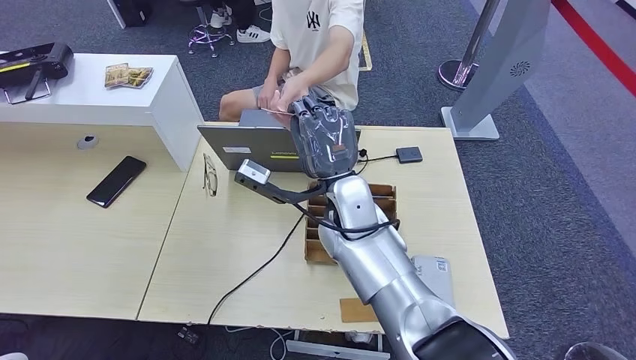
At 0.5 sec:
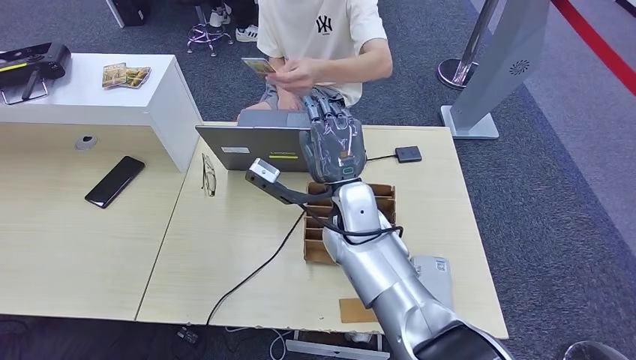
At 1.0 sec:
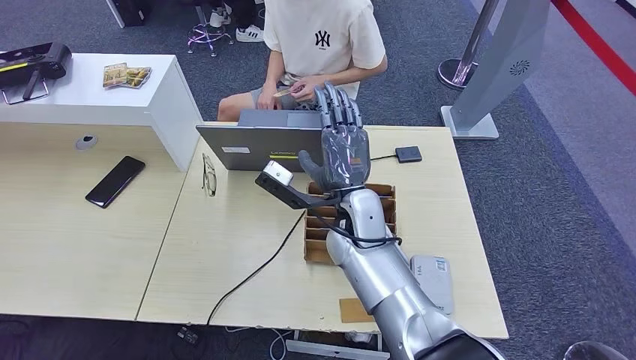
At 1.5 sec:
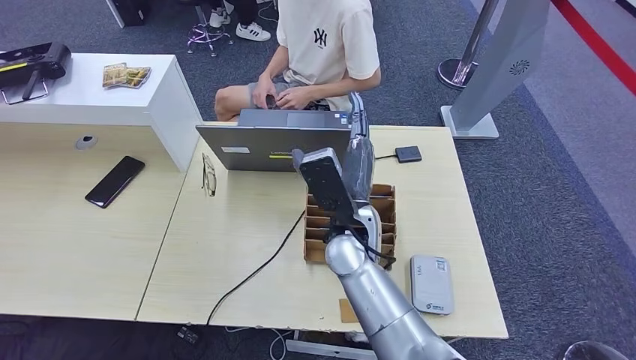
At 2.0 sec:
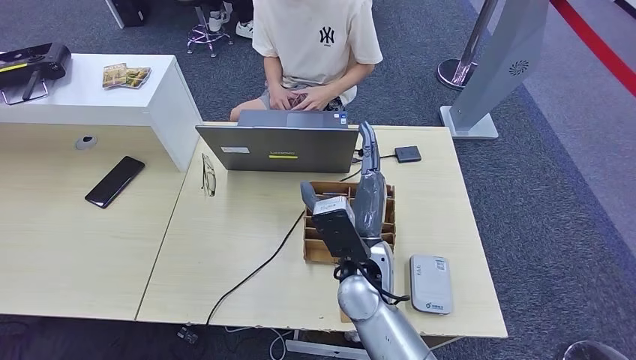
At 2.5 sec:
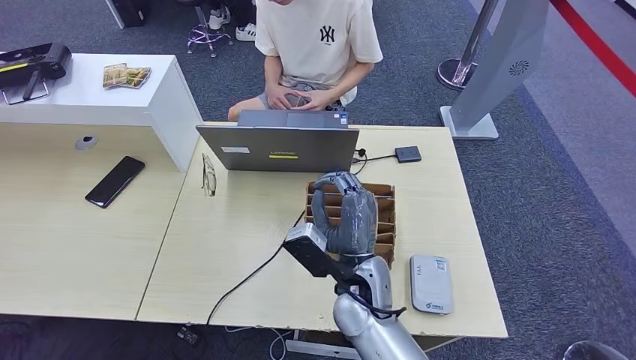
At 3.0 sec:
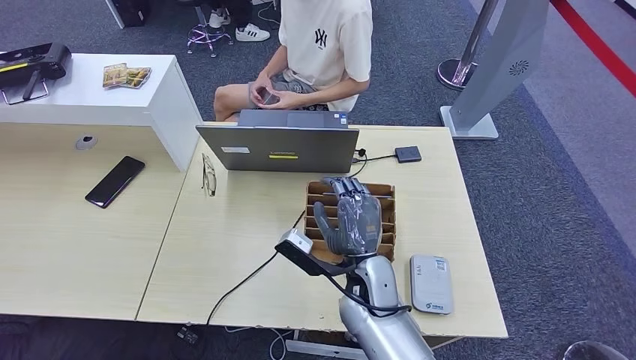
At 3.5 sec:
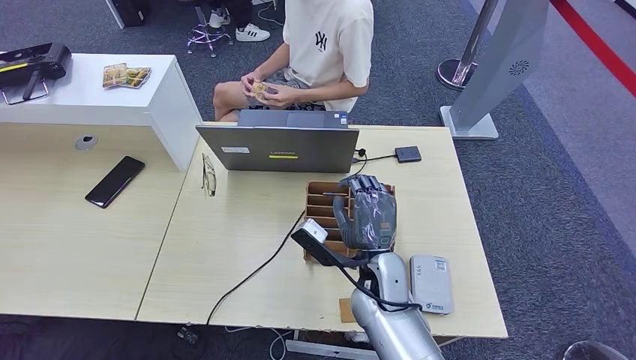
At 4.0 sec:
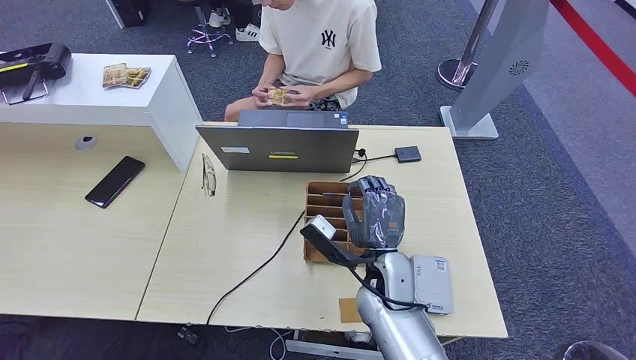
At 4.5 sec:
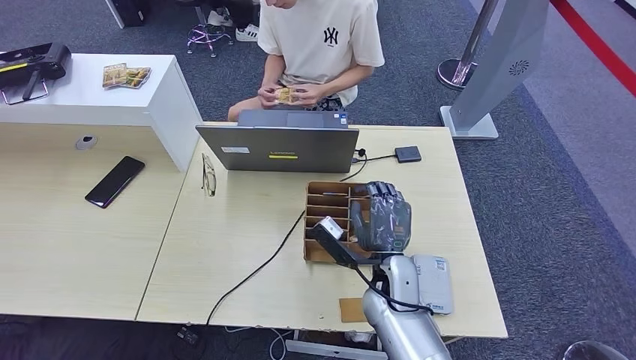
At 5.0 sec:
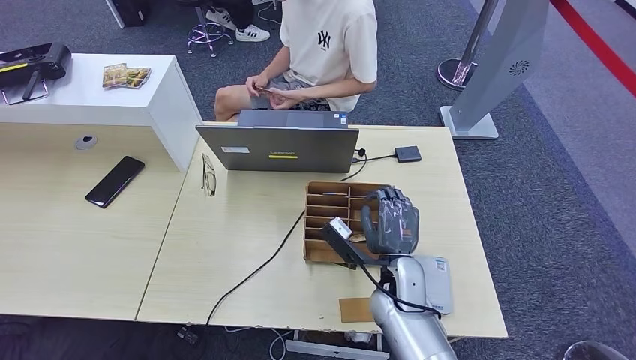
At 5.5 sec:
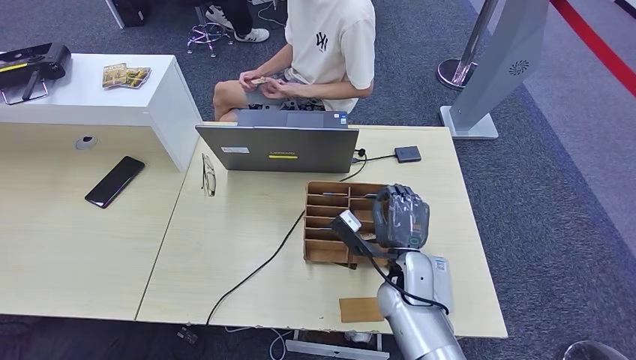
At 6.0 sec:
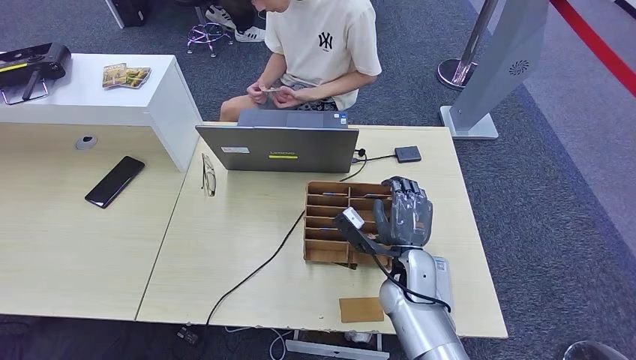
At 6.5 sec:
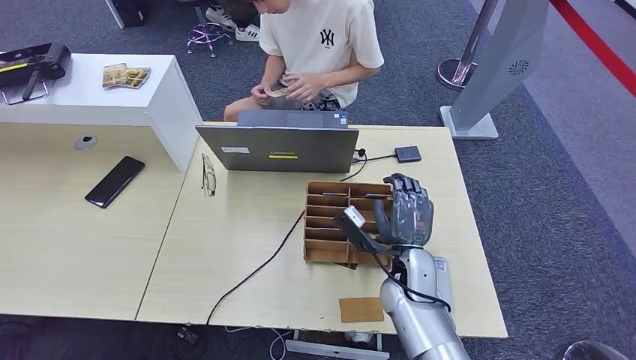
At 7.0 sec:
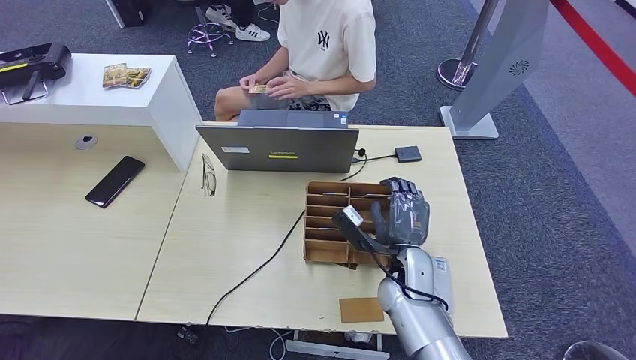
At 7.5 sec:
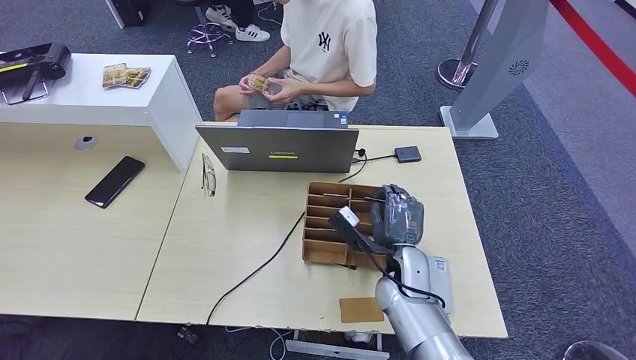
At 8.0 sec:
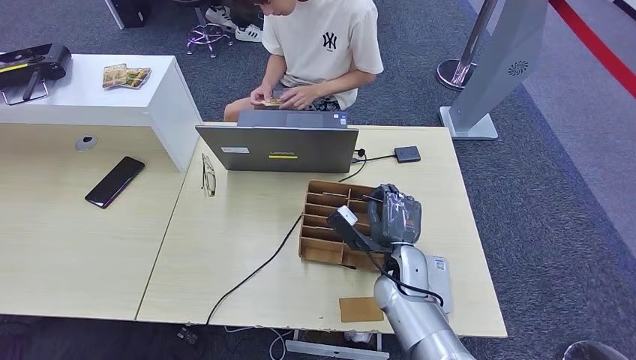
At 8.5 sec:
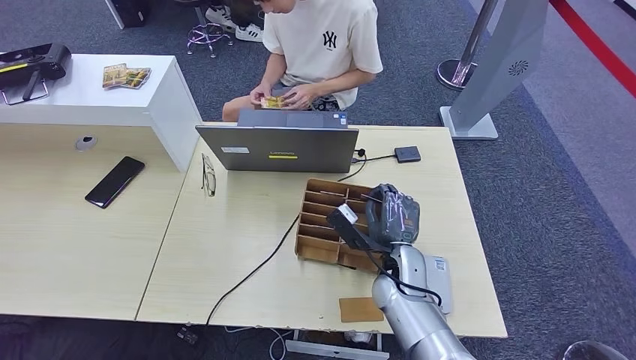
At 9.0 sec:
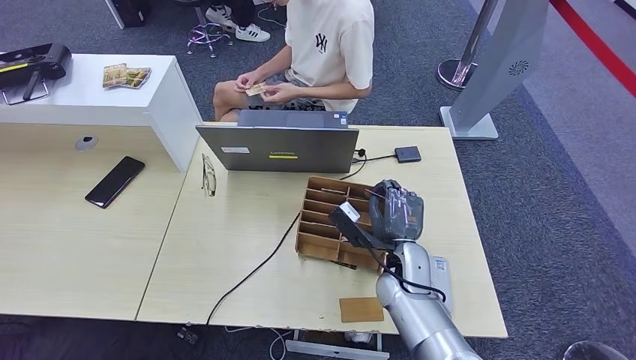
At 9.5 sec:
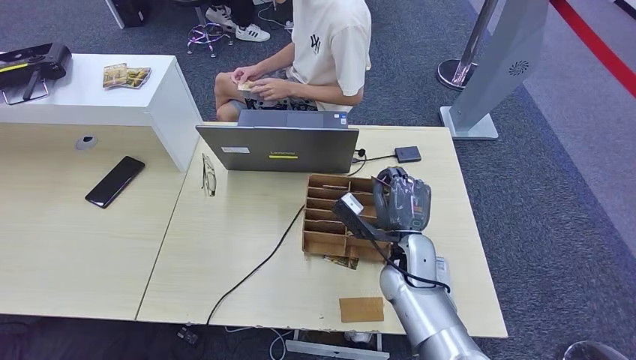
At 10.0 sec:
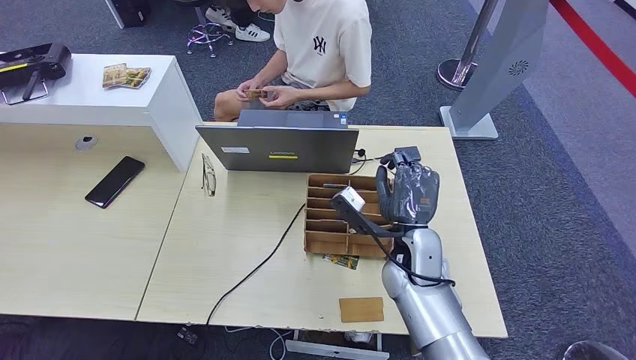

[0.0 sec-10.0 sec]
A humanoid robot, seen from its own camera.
0.0 sec to 2.0 sec: The right hand travels backward and downward by approximately 10 cm.
2.0 sec to 4.0 sec: The right hand heads downward, covering about 5 cm.
4.0 sec to 6.0 sec: The right hand shifts by roughly 5 cm.
6.0 sec to 8.0 sec: The hands move only a little.
8.0 sec to 10.0 sec: The right hand heads upward, covering some 5 cm.

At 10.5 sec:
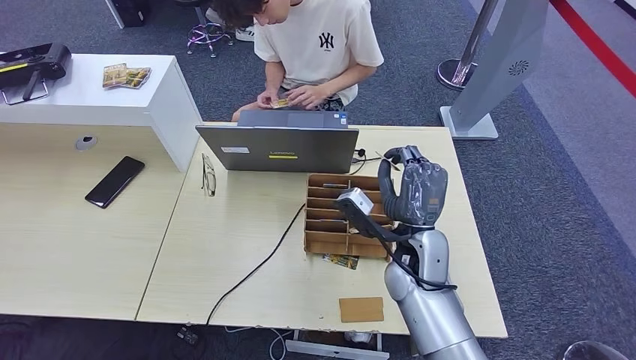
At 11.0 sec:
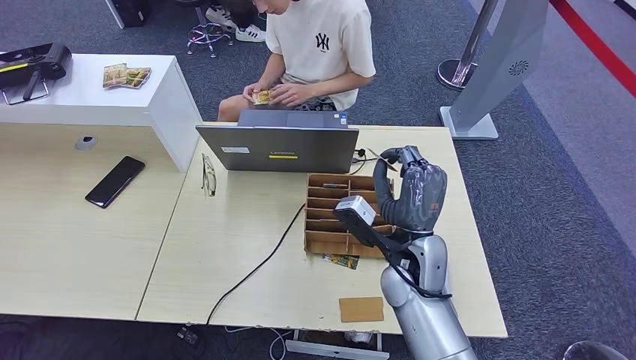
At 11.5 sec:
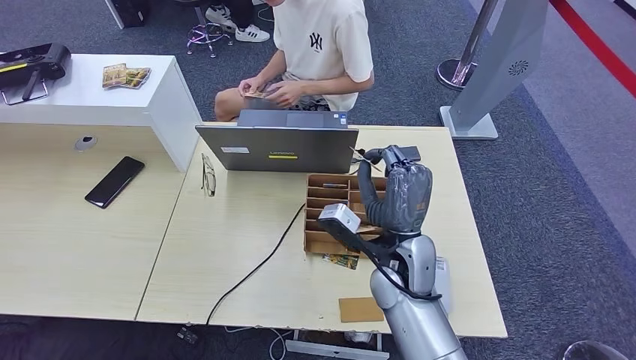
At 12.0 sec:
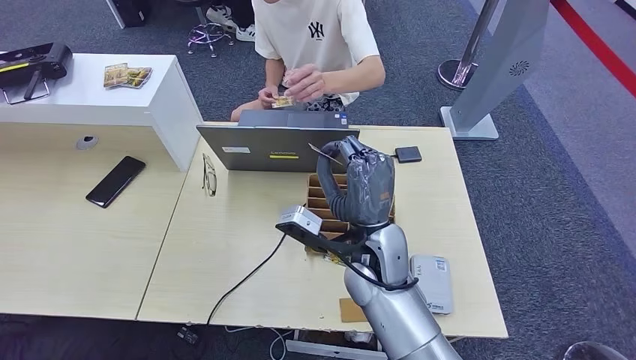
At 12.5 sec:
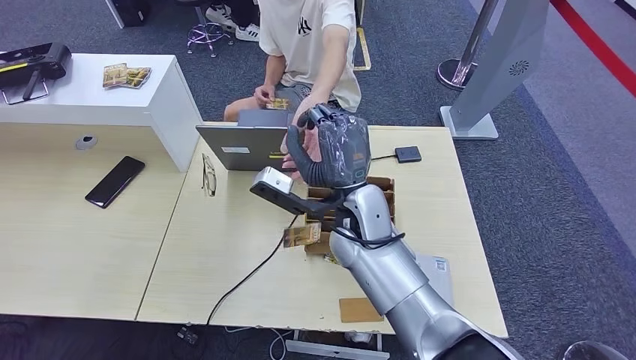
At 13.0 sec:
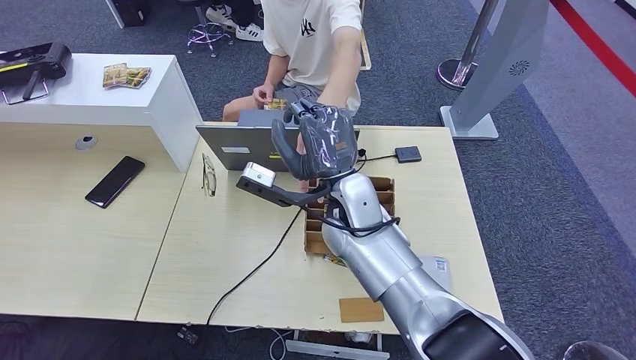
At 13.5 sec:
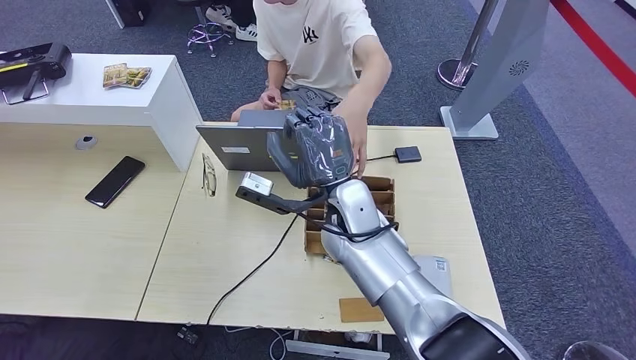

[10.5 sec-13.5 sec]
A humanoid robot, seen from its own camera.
Step, 11.0 sec to 13.0 sec: Hand the room key to the person.
10.5 sec to 12.0 sec: The right hand is displaced to the left by about 10 cm.
12.0 sec to 13.5 sec: The right hand heads forward, covering roughly 5 cm.
